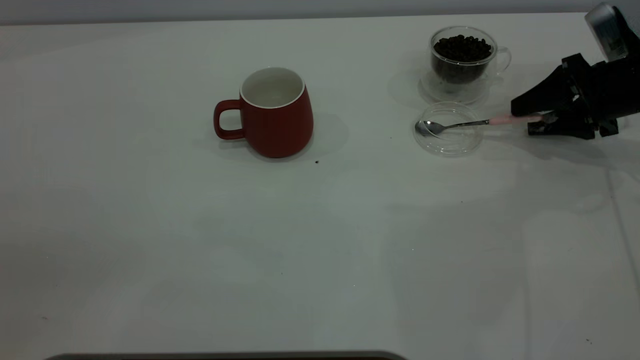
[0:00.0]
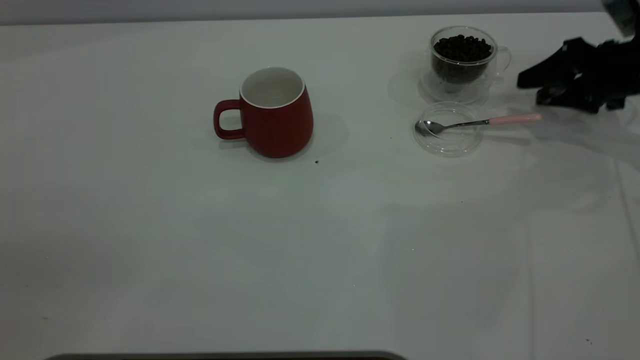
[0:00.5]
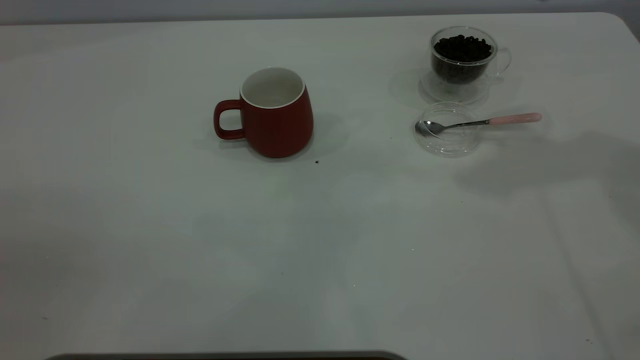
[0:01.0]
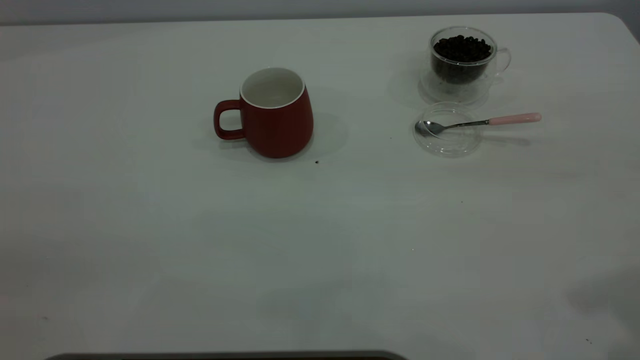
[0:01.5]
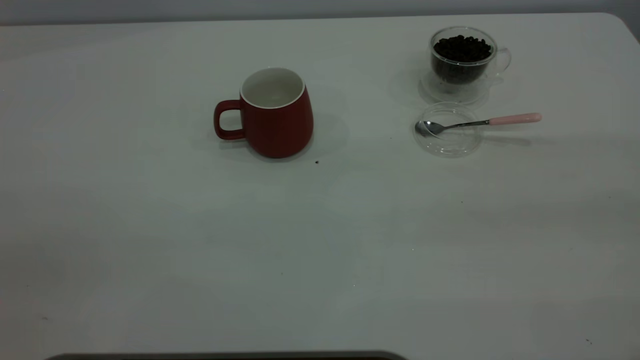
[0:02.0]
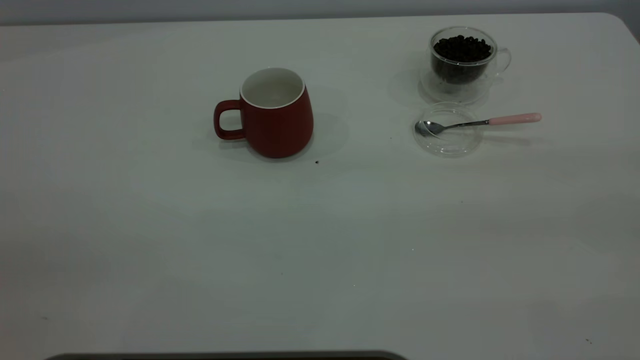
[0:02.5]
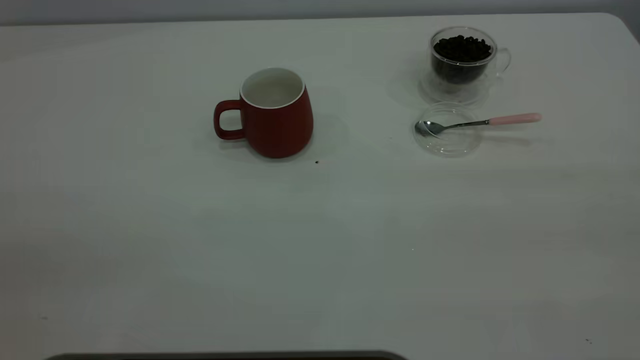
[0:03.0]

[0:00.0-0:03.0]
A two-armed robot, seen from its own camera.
Task of the whole recording: the left gripper place the red cup in the center of the table, the right gripper take the pink spoon from the cup lid and scoop out the coffee beans from the coffee cup and put them into the red cup, the right gripper put the spoon back into the cup lid.
0:00.0 to 0:01.5: The right gripper travels upward and backward by roughly 40 cm.
